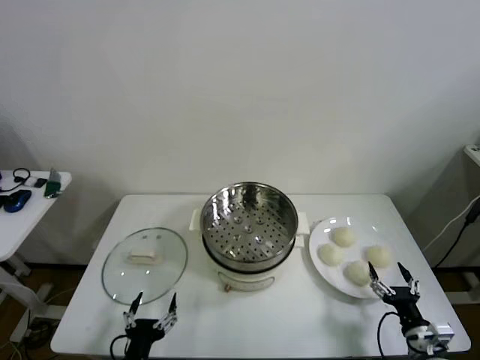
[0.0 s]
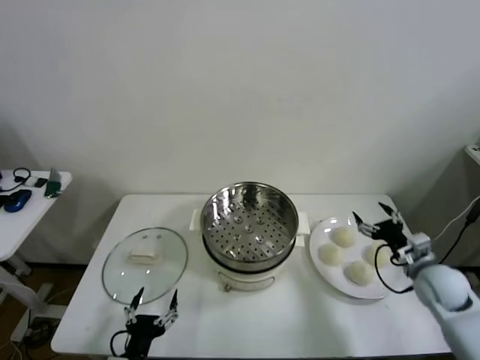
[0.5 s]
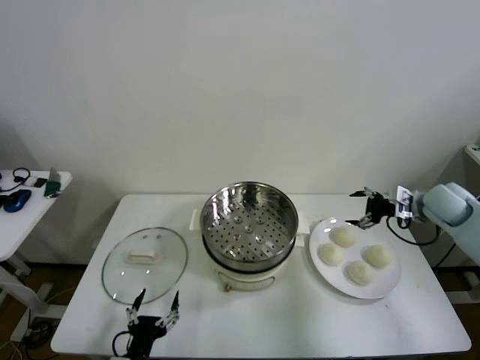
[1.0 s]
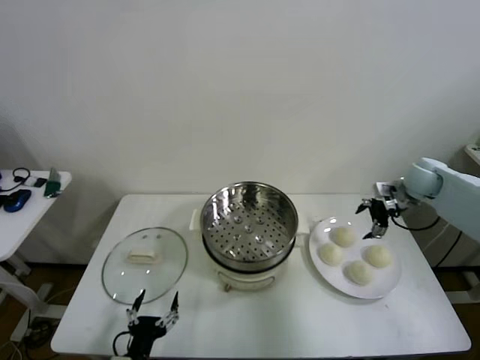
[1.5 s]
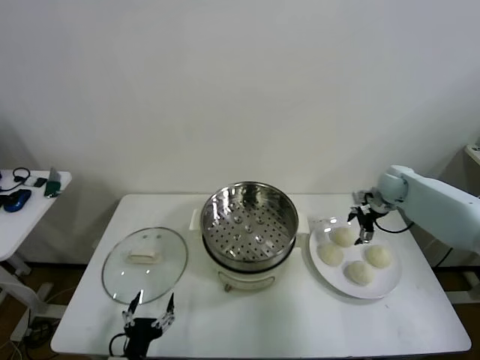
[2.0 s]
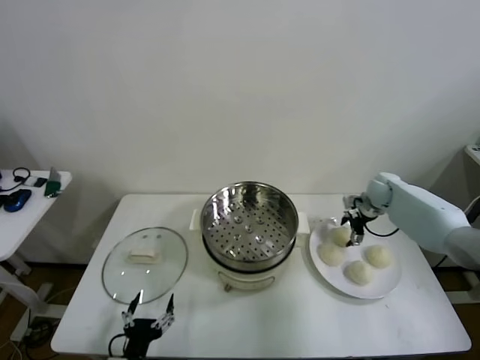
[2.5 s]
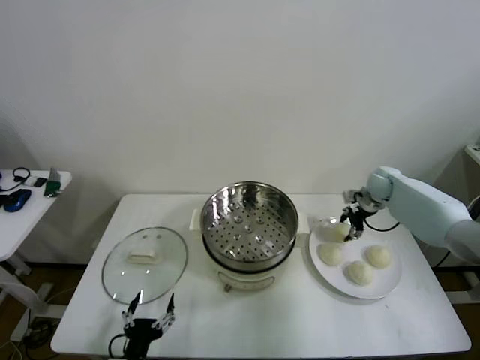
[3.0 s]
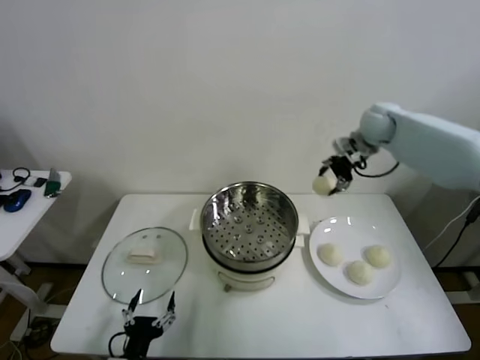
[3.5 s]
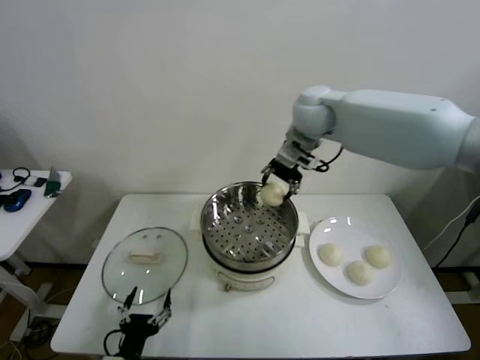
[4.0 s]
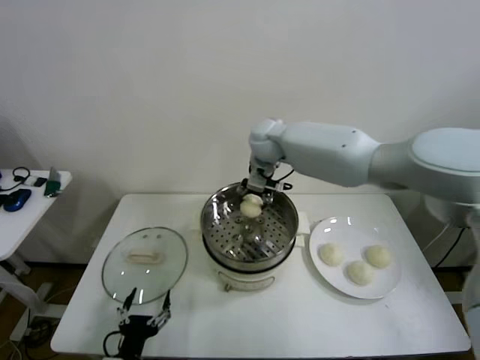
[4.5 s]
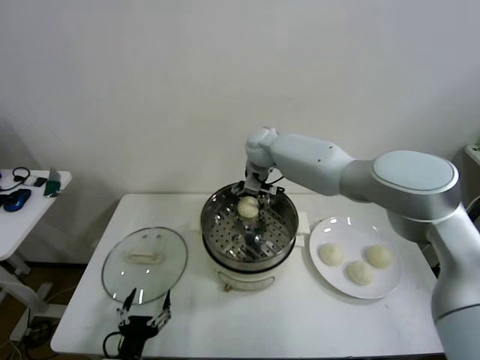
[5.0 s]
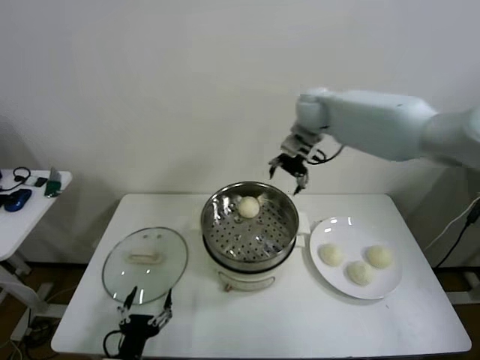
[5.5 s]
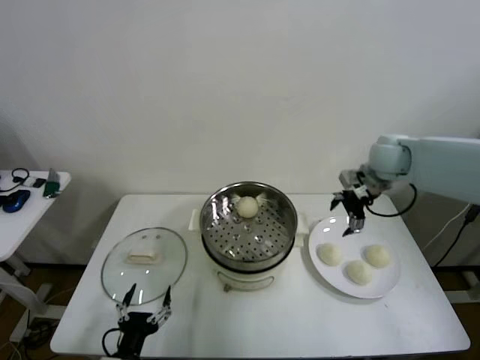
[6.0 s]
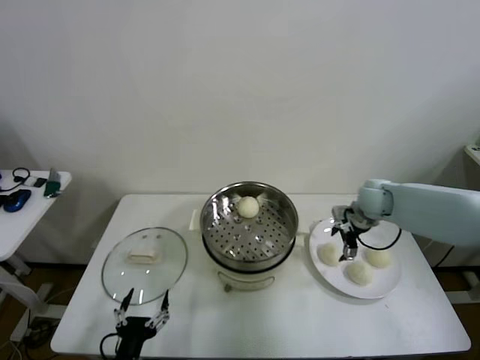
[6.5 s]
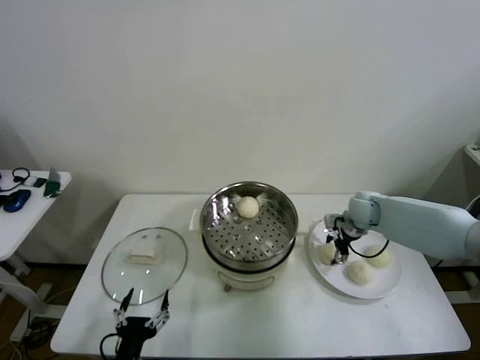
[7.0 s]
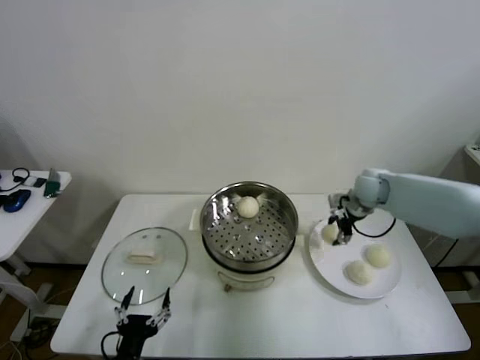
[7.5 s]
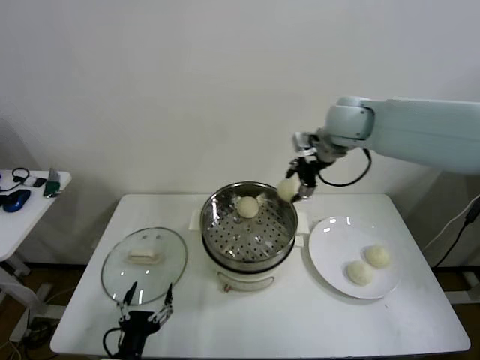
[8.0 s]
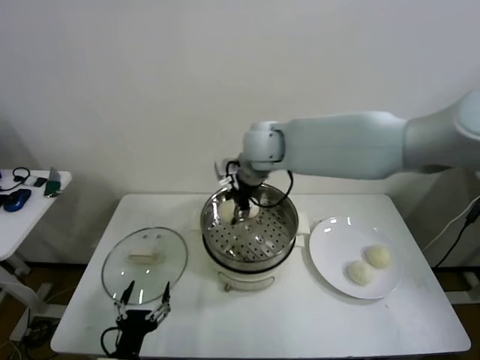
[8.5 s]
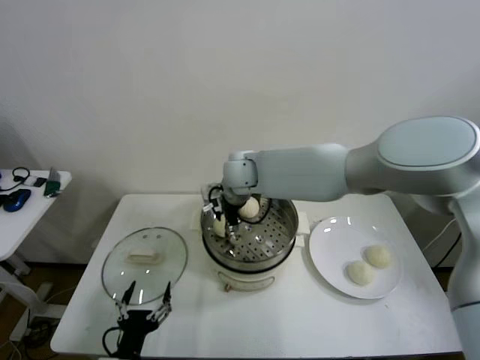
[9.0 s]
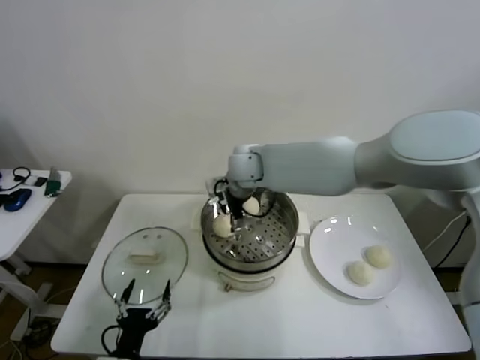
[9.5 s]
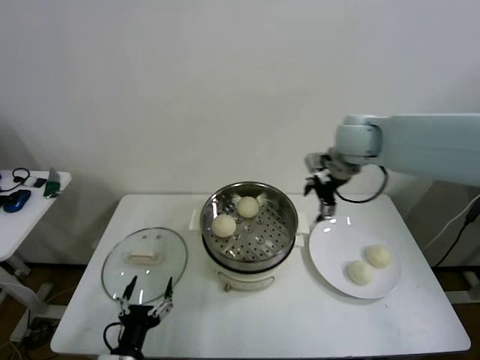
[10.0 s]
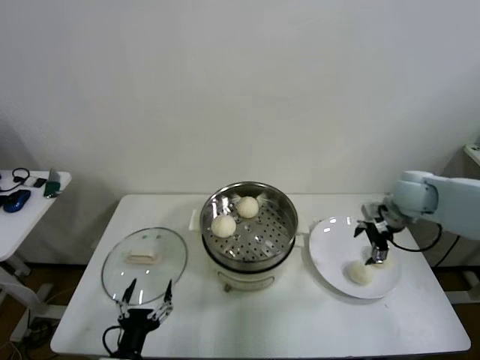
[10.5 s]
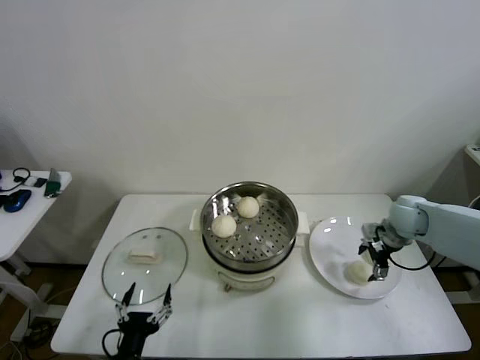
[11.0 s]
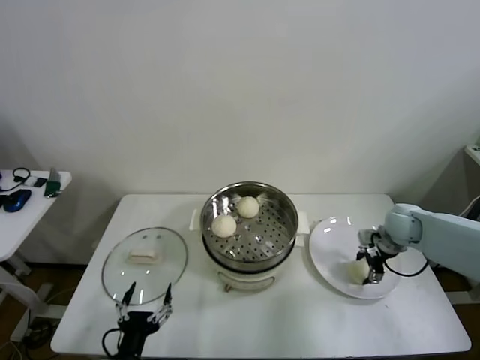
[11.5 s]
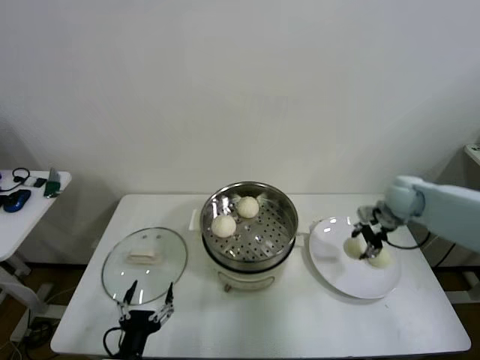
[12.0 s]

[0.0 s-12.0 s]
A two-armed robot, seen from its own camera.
Step, 0.0 to 2.5 s: Grasp the baozi in the plate with right gripper.
Step, 3.0 to 5.0 s: Place the baozi on the steamer with right gripper.
Step, 5.5 to 7.0 s: Grasp the baozi in the plate with right gripper.
Step, 7.5 to 9.0 s: Place the baozi on the steamer with right gripper.
Step, 9.5 to 11.5 s: Grasp the baozi in the plate with right gripper.
2.0 to 4.0 s: The right gripper heads to the left and upward, covering roughly 35 cm, and closes up.
4.0 to 6.0 s: The right gripper is displaced to the right and downward by approximately 25 cm, and opens up.
6.0 to 8.0 s: The right gripper heads to the left and upward, covering some 20 cm, and closes.
8.0 to 10.0 s: The right gripper moves roughly 20 cm to the left and comes back, and opens up.
10.0 to 12.0 s: The right gripper shifts some 15 cm downward and to the right, and closes up.

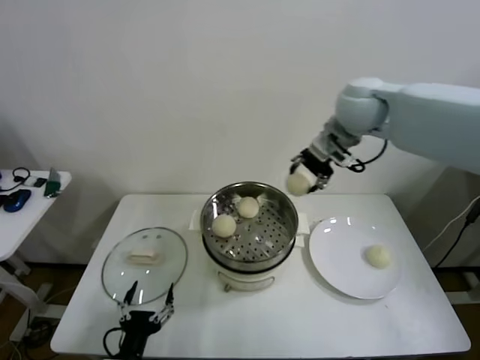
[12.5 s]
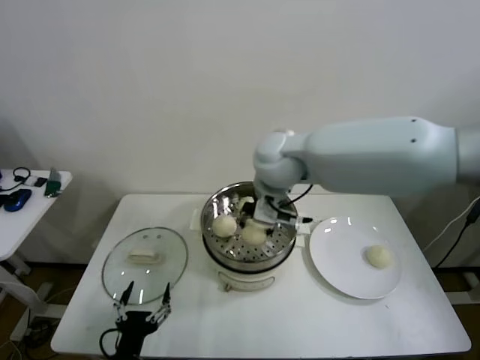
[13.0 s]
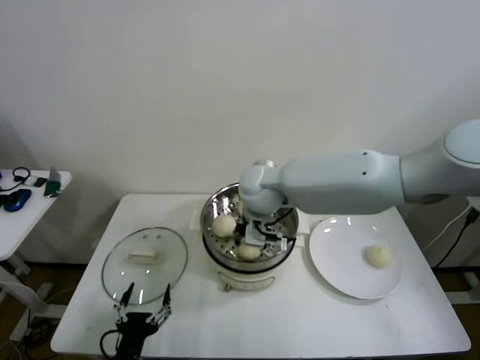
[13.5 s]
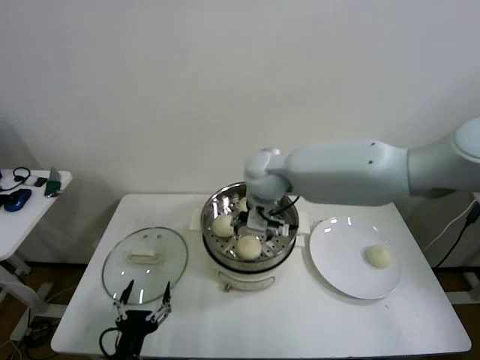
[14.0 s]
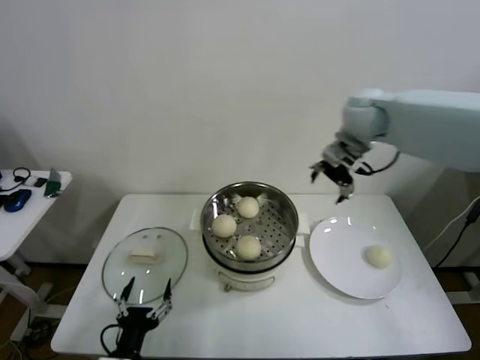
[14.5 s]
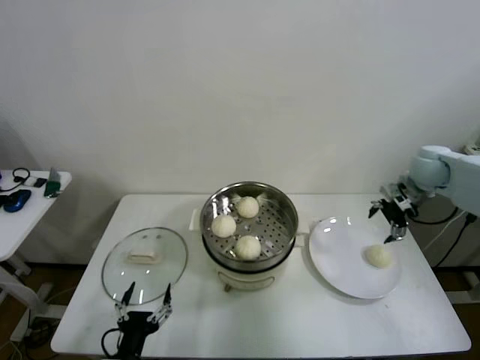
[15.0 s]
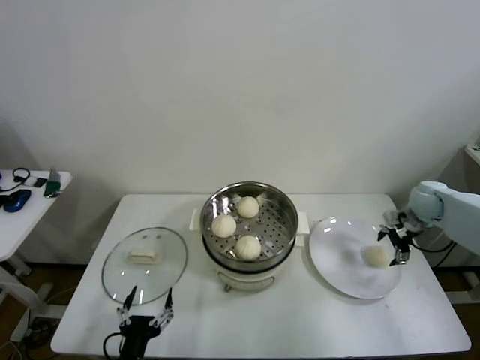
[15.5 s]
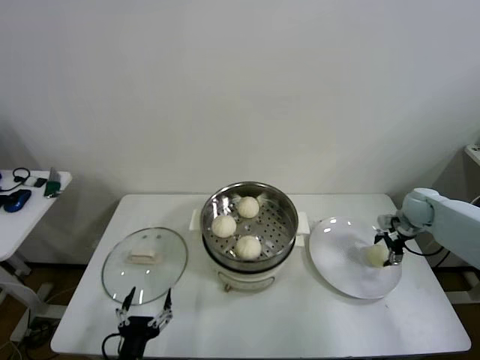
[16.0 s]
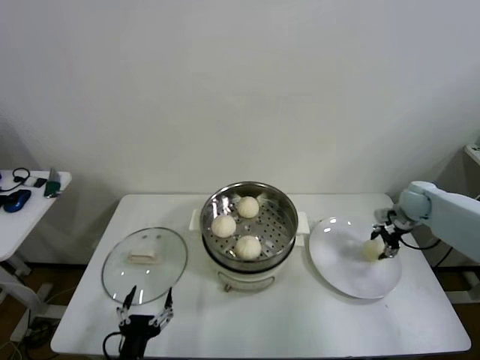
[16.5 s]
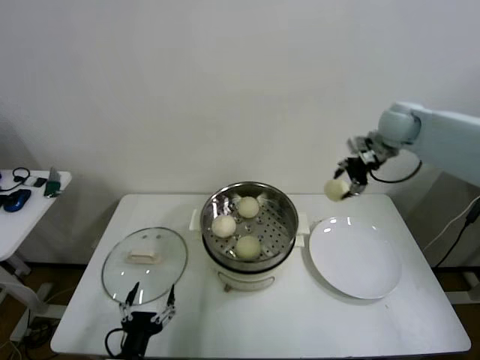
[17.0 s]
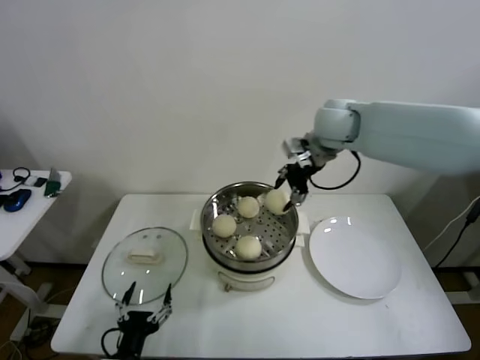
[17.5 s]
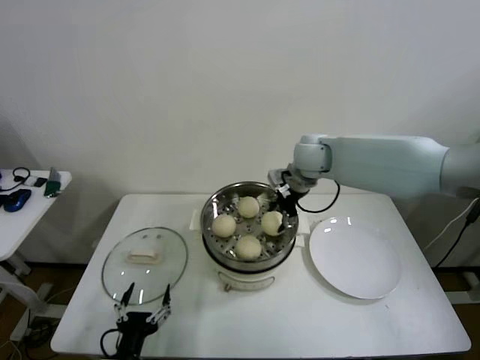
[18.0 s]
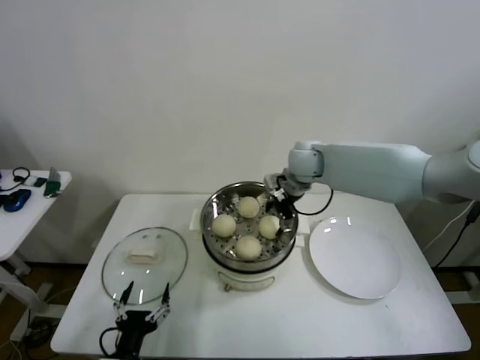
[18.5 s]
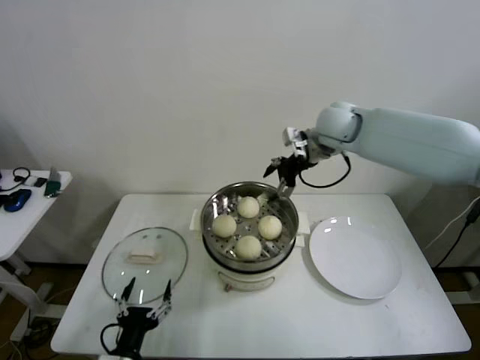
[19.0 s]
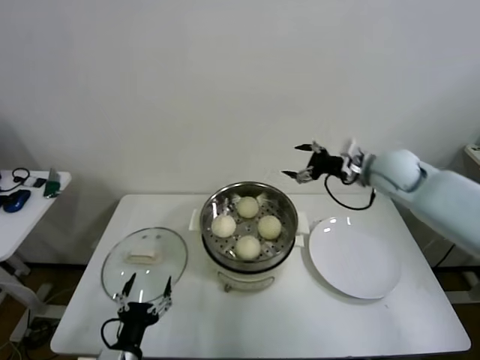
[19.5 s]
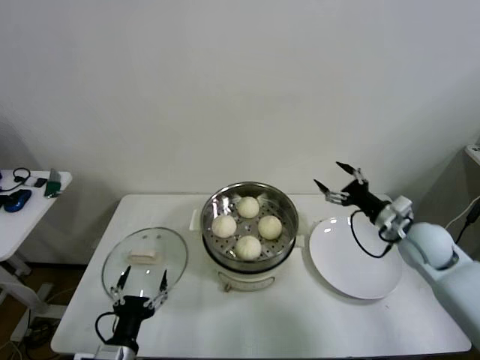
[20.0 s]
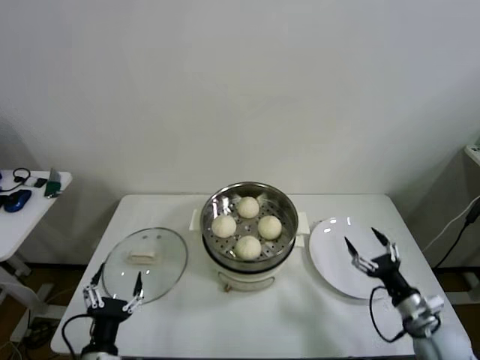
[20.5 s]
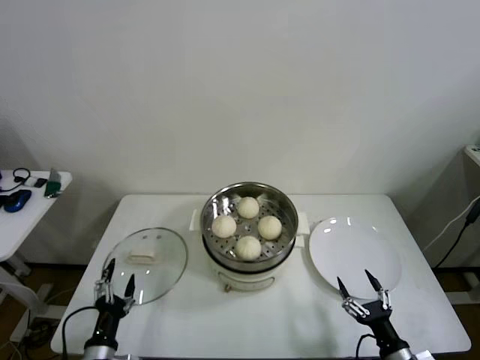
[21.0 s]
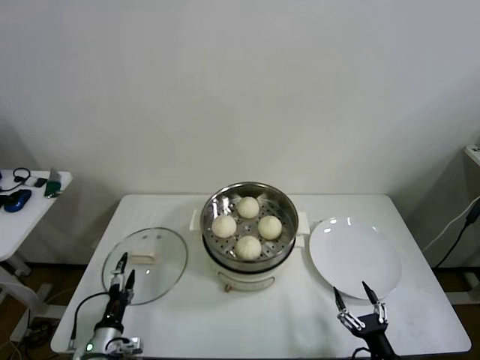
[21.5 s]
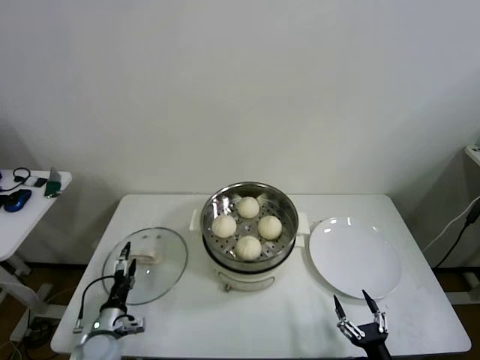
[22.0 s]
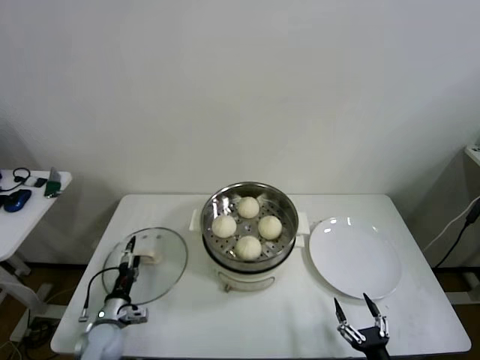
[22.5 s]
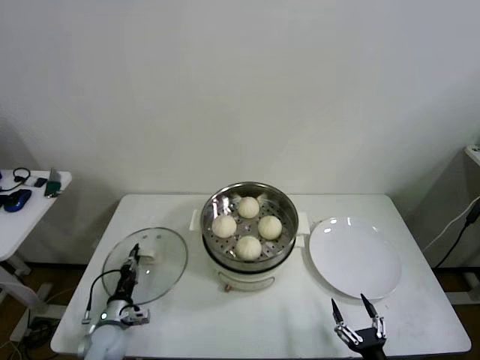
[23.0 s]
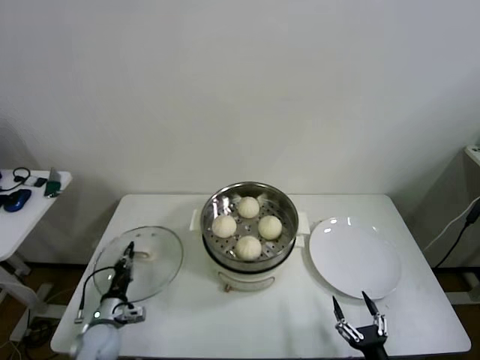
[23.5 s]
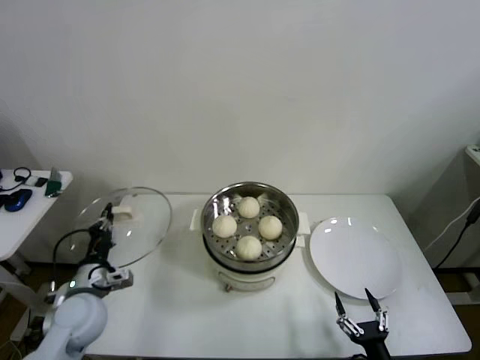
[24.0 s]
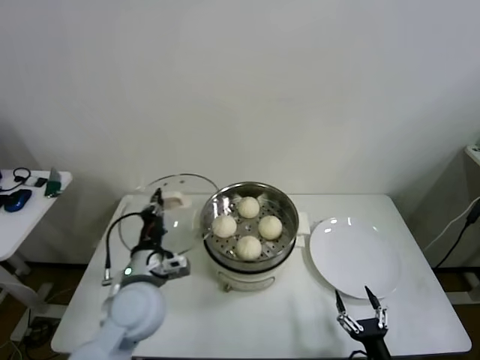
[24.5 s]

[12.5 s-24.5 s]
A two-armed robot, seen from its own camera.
Step, 14.0 to 16.0 s: Grasp the baozi in the plate with right gripper.
Step, 16.5 to 18.0 s: Place the baozi on the steamer with right gripper.
Step, 18.5 to 23.0 s: Grasp the pot lid with left gripper.
12.5 to 14.5 s: The right gripper reaches approximately 15 cm to the left, then returns, and opens up.
14.5 to 16.5 s: The right gripper travels downward and to the right by about 30 cm, and closes its fingers.
16.5 to 18.5 s: The right gripper travels to the left by about 30 cm, and opens up.
18.5 to 20.5 s: The right gripper heads backward, to the right and downward, covering some 50 cm.
20.5 to 22.5 s: The left gripper is displaced forward, downward and to the left by roughly 20 cm, while the right gripper shifts some 20 cm backward, downward and to the left.
22.5 to 24.5 s: The left gripper is displaced upward and to the right by about 25 cm, and closes up.

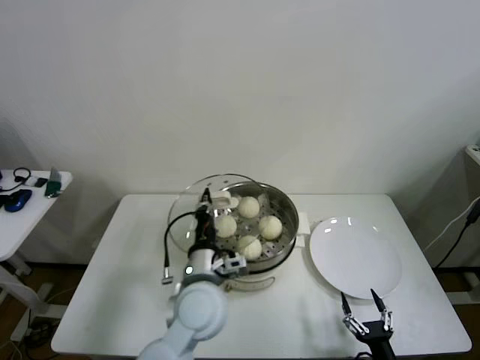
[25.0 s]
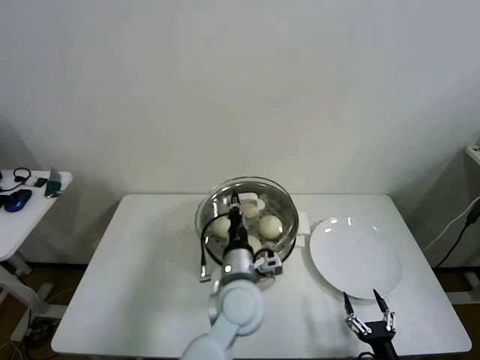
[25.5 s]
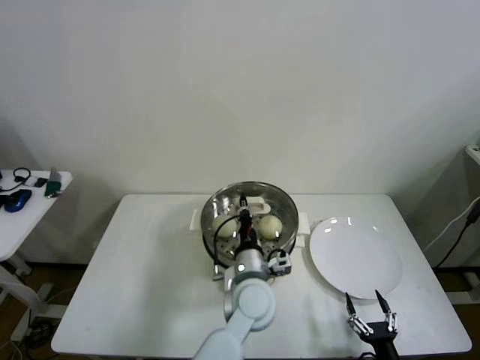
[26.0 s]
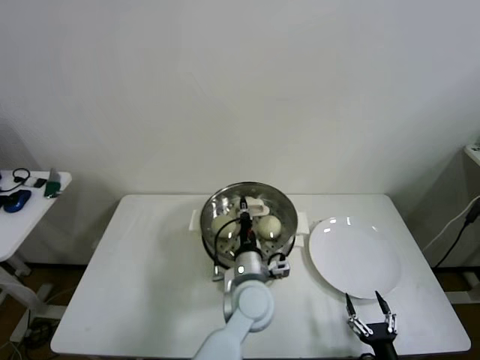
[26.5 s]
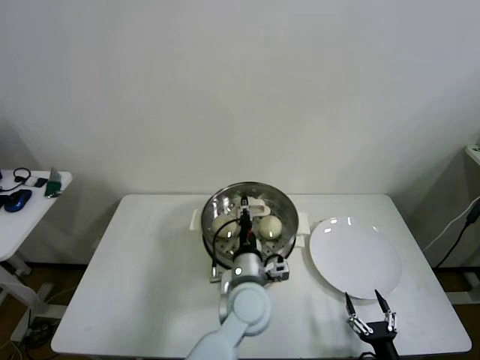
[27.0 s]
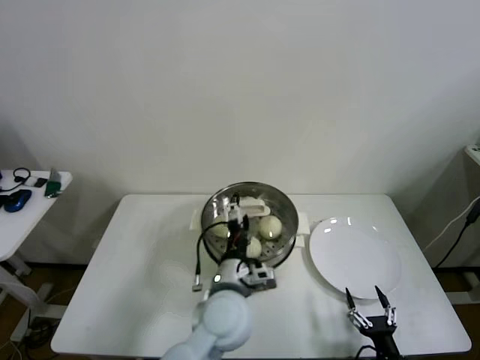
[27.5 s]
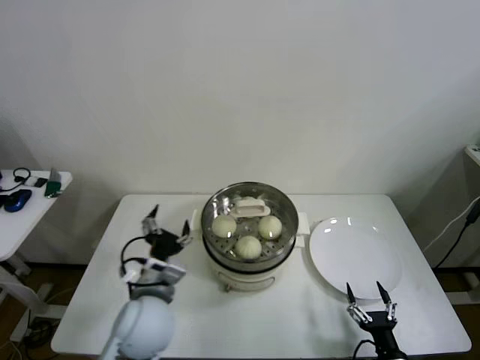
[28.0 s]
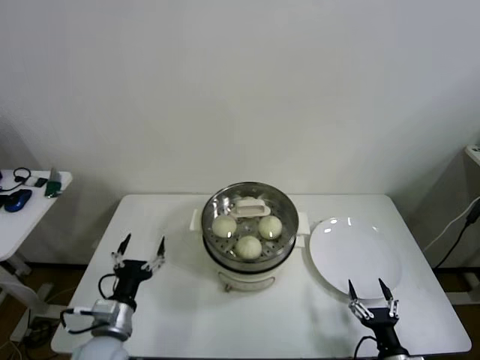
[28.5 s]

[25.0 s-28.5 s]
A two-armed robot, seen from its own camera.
Step, 25.0 to 27.0 s: Place the pot lid on the steamer with left gripper.
25.0 to 27.0 s: The left gripper is displaced to the right and downward by about 10 cm.
27.0 to 28.5 s: The left gripper is displaced to the left by approximately 30 cm, and opens its fingers.
